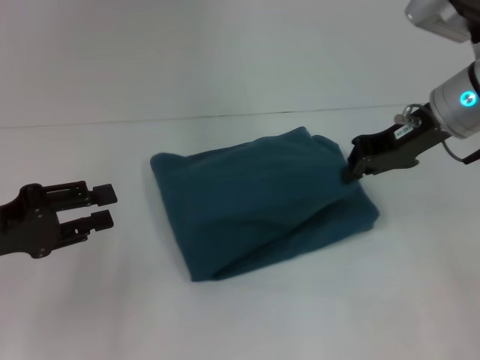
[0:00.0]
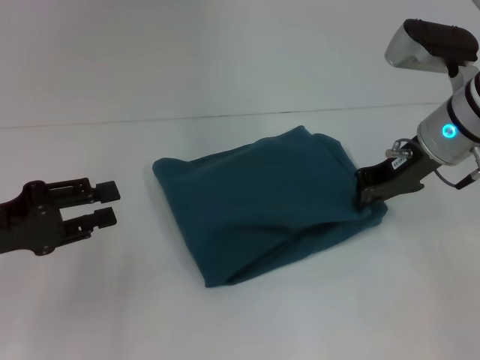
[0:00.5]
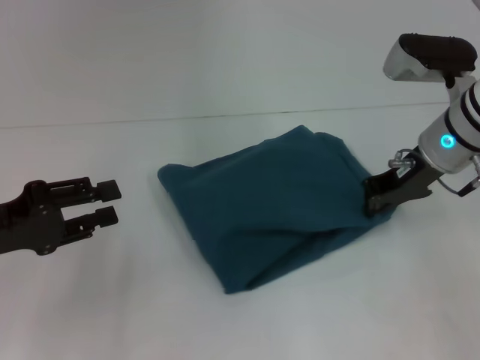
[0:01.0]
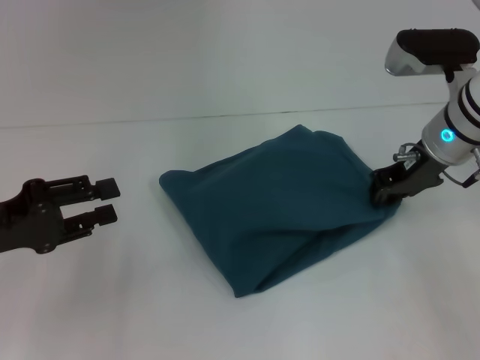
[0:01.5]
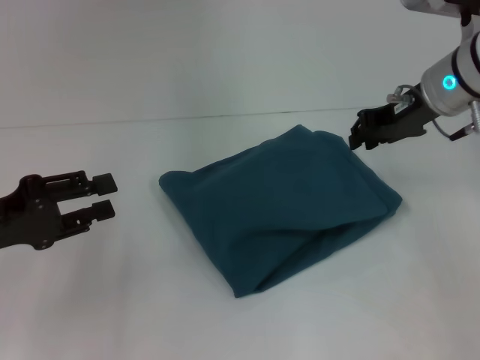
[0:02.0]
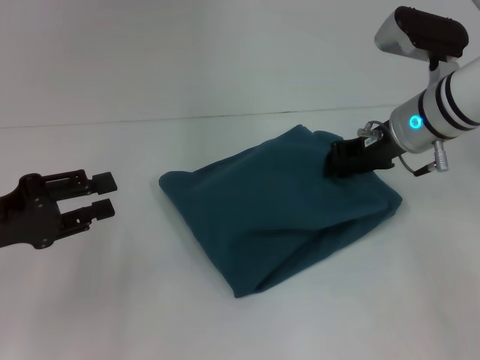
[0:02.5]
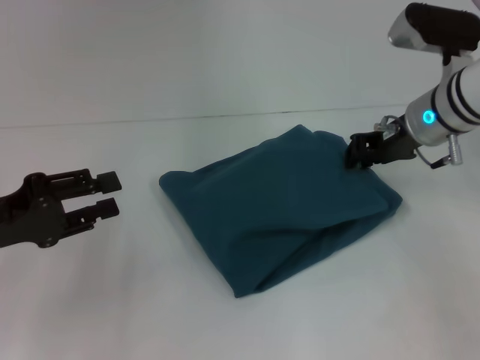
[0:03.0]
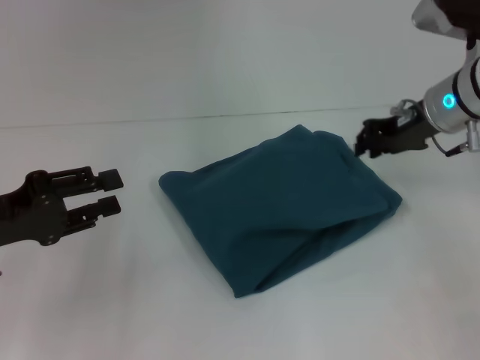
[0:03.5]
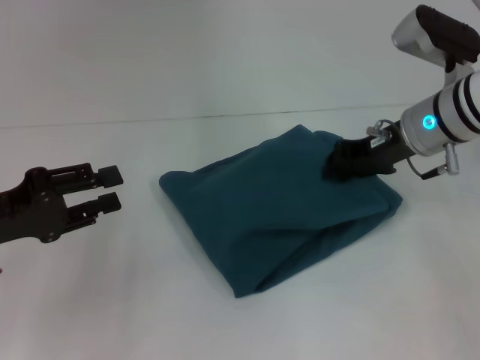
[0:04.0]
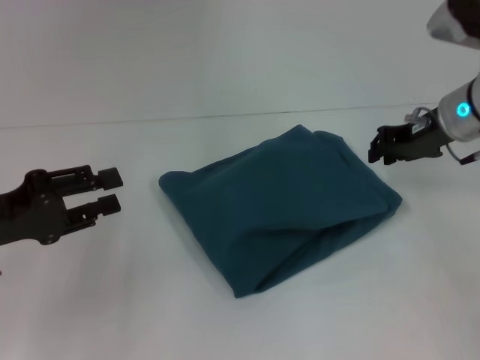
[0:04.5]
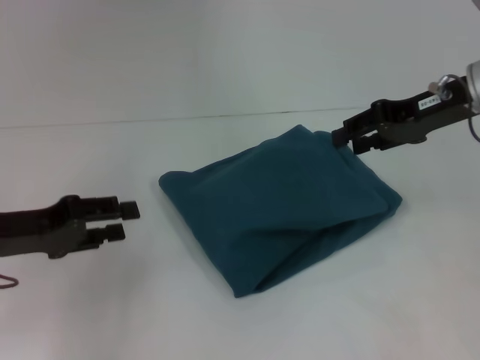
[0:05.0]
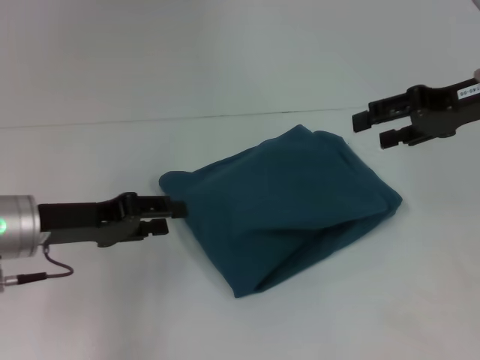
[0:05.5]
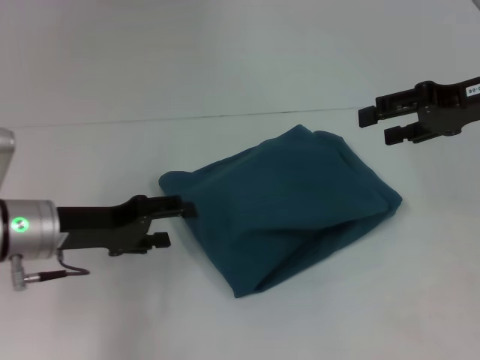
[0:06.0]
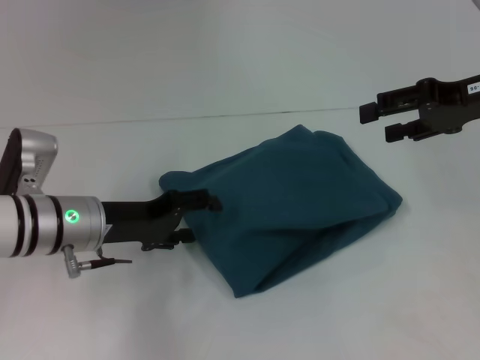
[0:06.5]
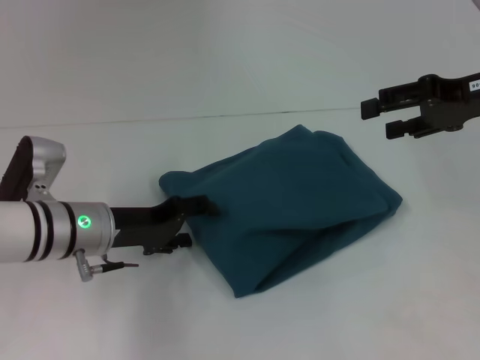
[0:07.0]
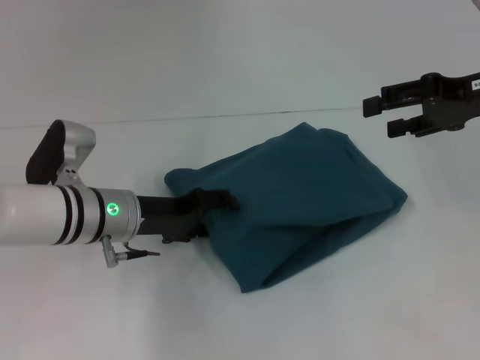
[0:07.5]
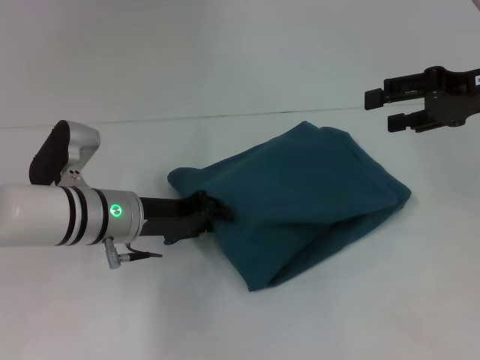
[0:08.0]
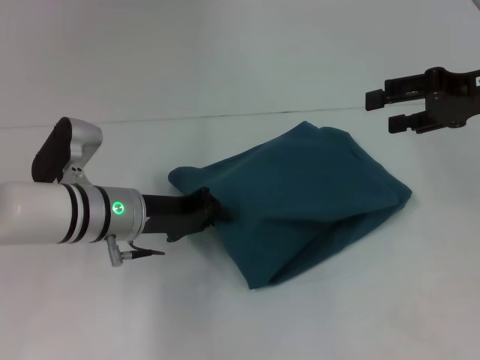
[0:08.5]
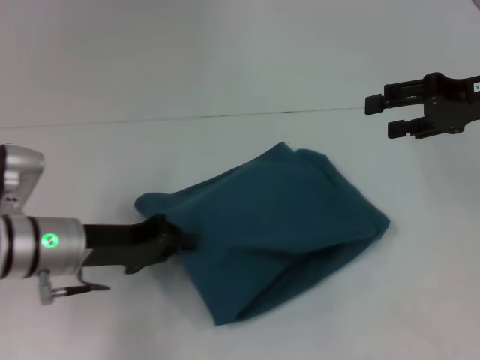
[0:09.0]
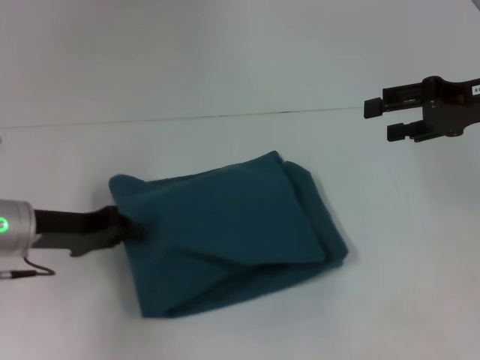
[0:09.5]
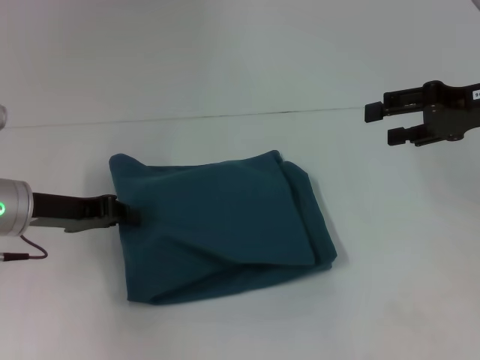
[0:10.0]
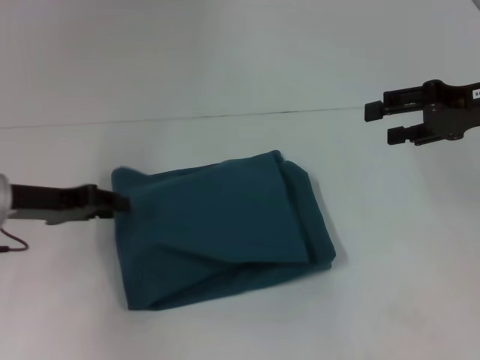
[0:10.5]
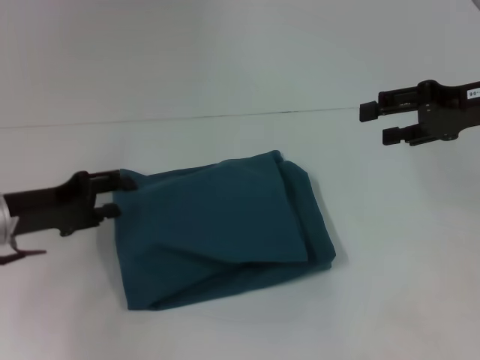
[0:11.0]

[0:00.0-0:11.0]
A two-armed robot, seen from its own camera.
0:02.0 to 0:03.5: The grippers stay close to where they were, moving slightly.
0:03.5 to 0:05.5: The right gripper moves to the right and upward, some 10 cm, and opens. Meanwhile the left gripper is displaced to the right by about 5 cm.
0:05.5 to 0:07.5: The left gripper heads to the right, covering about 10 cm.
0:07.5 to 0:09.0: The left gripper moves approximately 5 cm, and closes its fingers.
0:09.0 to 0:11.0: The left gripper is displaced to the left by about 5 cm, and opens.

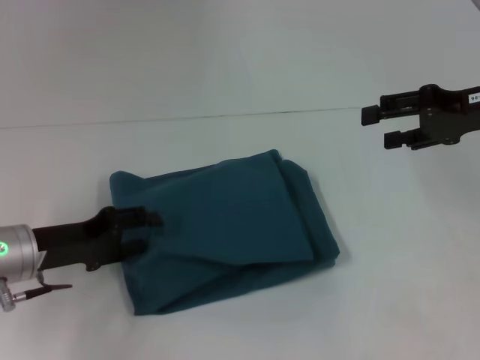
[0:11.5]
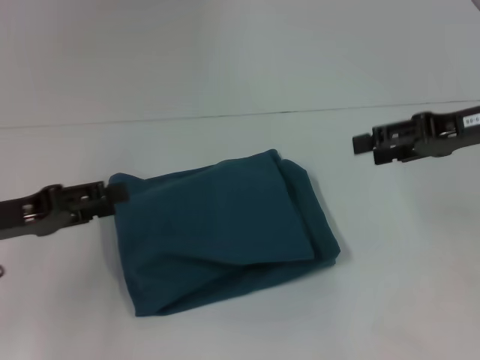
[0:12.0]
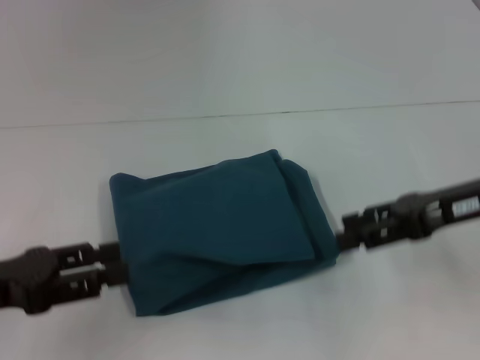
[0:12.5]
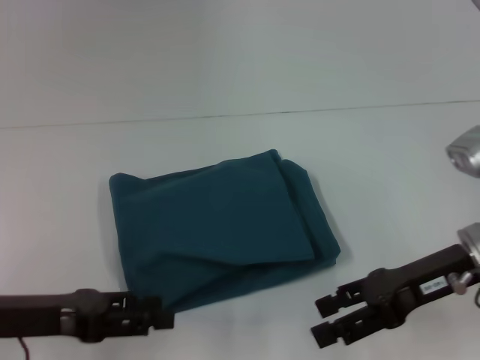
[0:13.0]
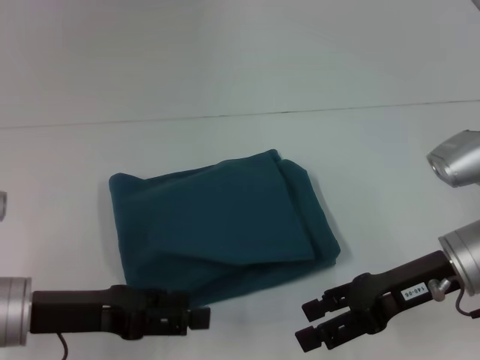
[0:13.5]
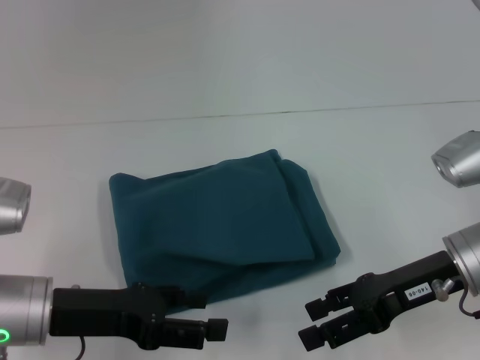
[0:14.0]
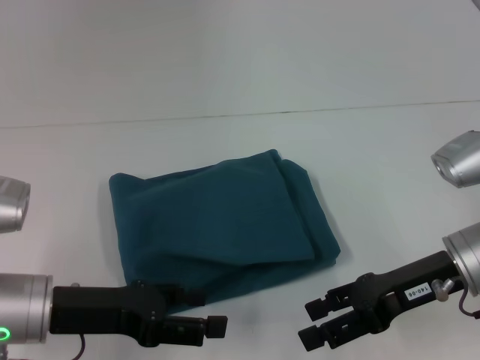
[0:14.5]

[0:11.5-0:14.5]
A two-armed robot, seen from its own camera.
0:11.5 to 0:13.0: The left gripper travels backward by about 5 cm; the right gripper heads backward, downward and to the left, covering roughly 15 cm.
0:13.0 to 0:14.5: The left gripper changes place by about 5 cm.

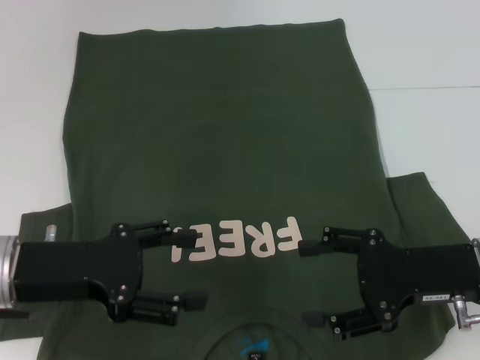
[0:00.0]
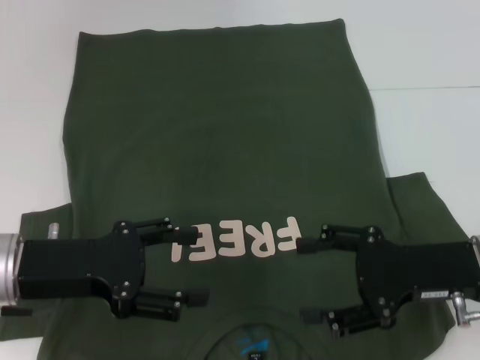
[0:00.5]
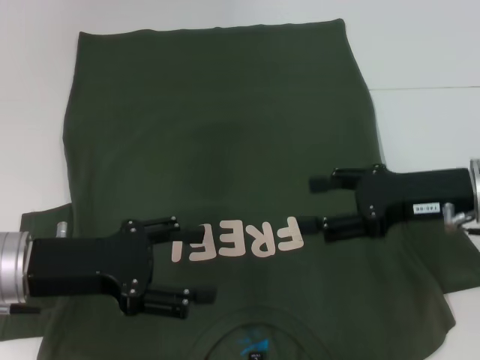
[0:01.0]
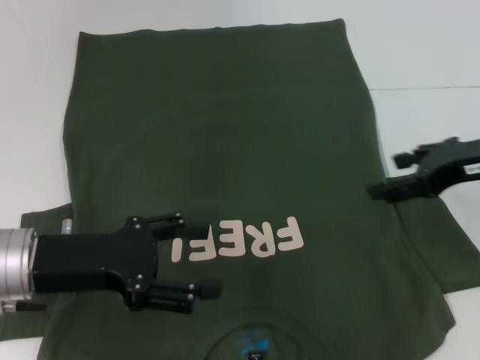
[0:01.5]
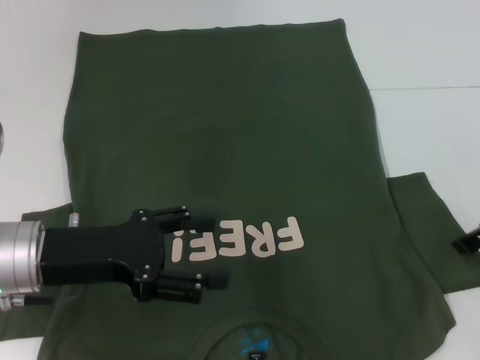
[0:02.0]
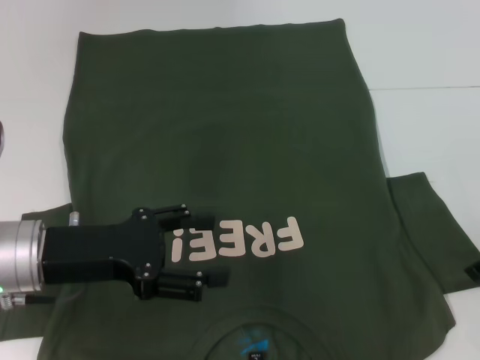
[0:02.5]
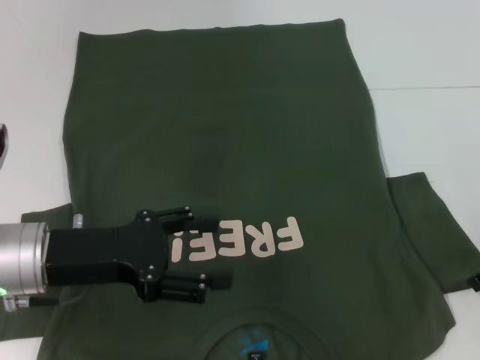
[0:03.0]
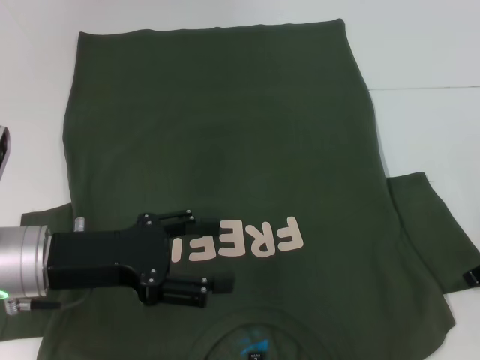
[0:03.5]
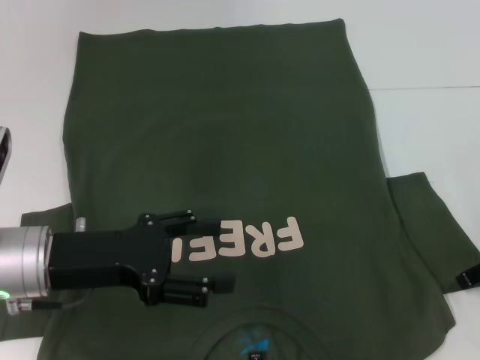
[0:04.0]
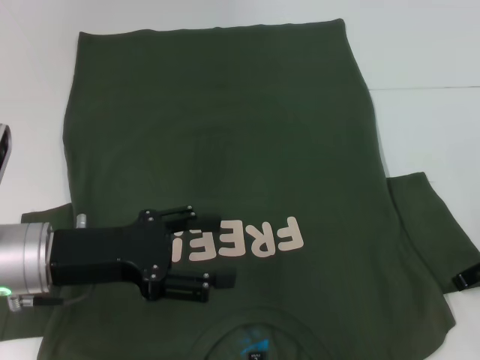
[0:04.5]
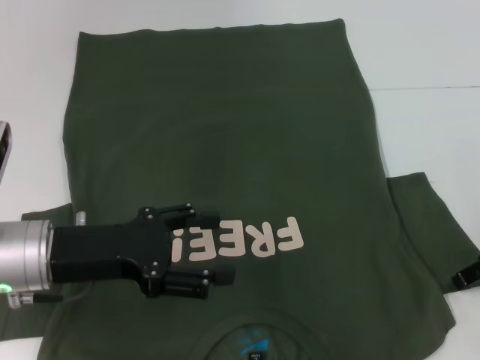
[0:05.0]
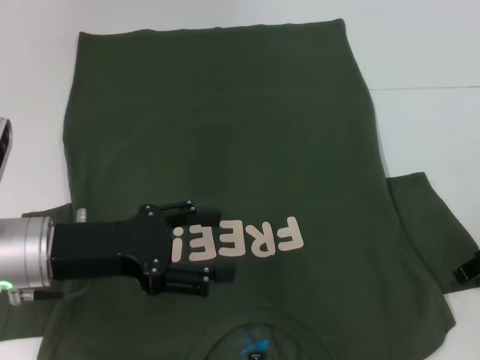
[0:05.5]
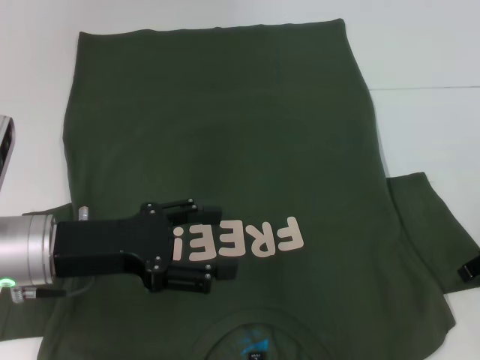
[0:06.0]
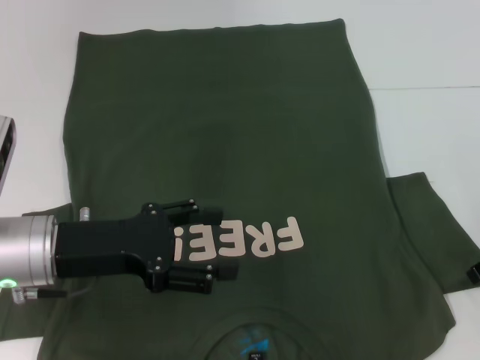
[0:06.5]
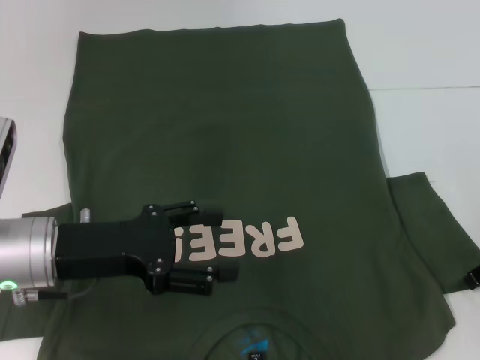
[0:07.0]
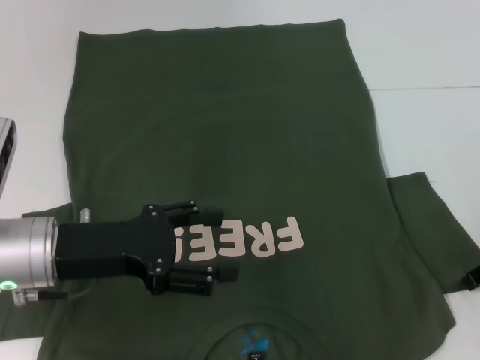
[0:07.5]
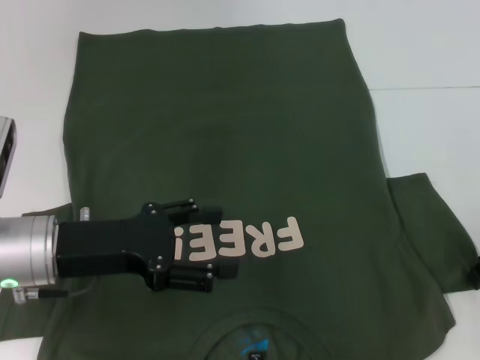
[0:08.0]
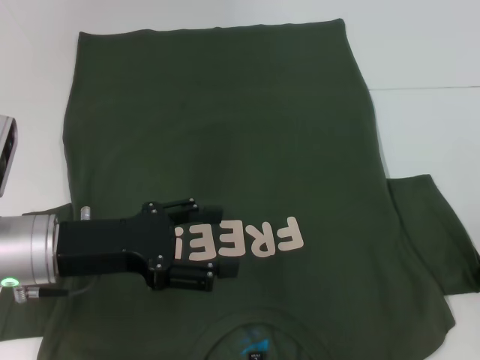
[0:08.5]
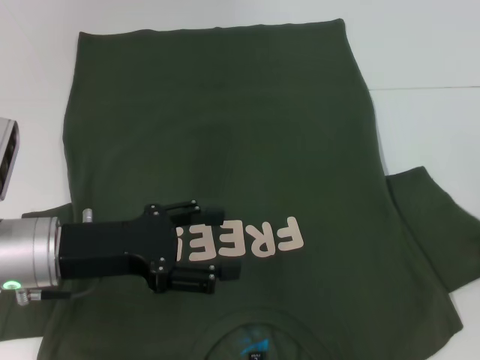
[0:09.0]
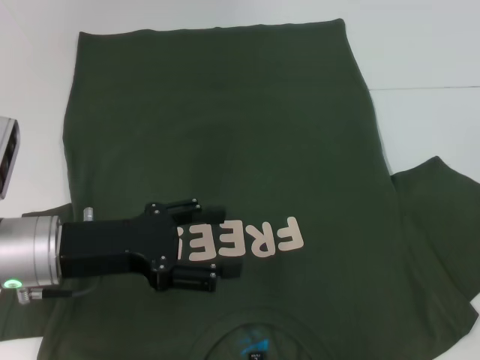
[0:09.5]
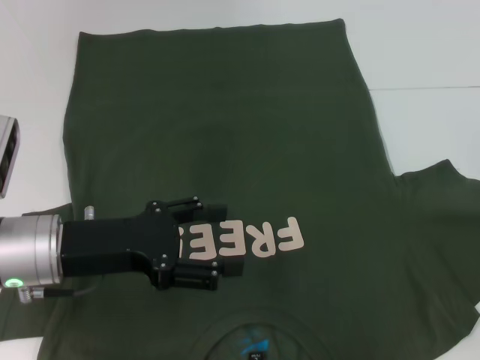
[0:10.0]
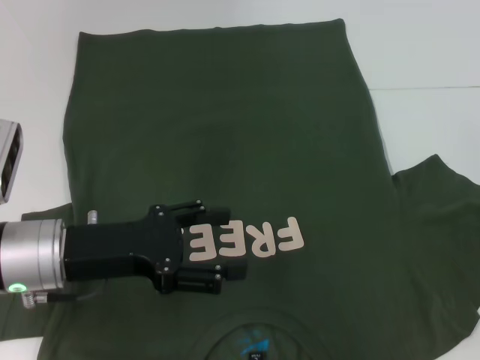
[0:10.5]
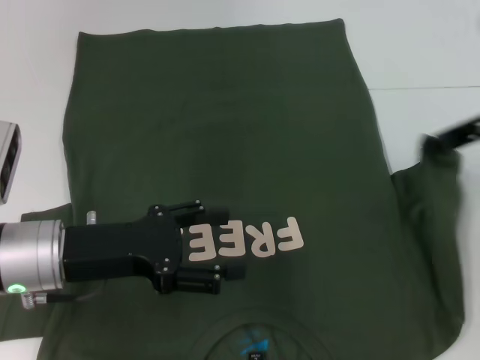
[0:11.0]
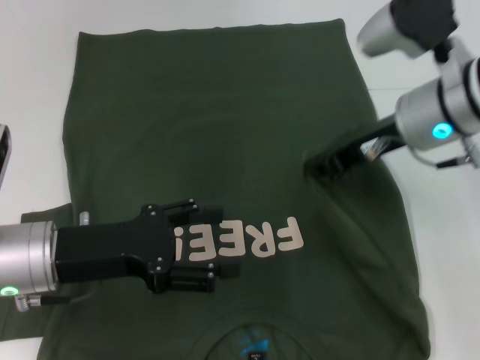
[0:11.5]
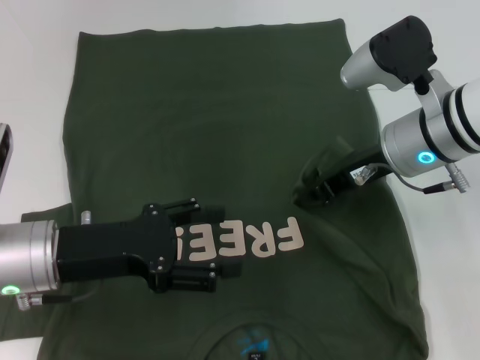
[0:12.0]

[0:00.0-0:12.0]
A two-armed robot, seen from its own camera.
0:00.0 to 0:02.0: The right gripper shifts about 10 cm forward, upward and to the right.
0:02.0 to 0:04.0: The grippers move only a little.
0:04.0 to 0:06.0: The right gripper closes.
0:06.0 to 0:08.0: Both grippers stay about where they are.
0:08.0 to 0:10.0: The right gripper goes roughly 5 cm to the right, and closes.
0:10.0 to 0:12.0: The right gripper is displaced to the left by approximately 20 cm.
